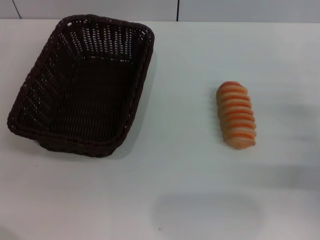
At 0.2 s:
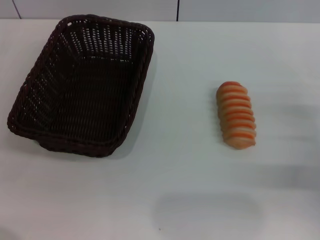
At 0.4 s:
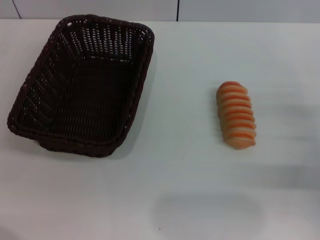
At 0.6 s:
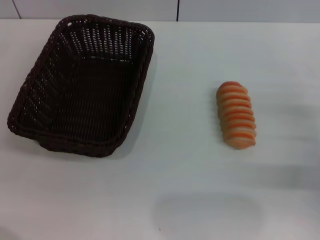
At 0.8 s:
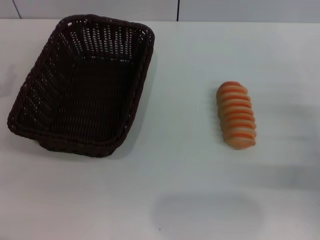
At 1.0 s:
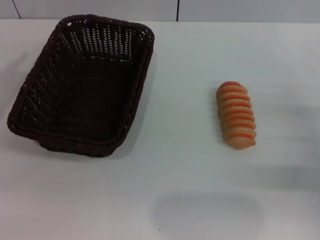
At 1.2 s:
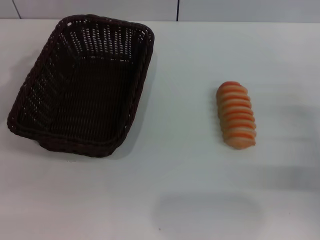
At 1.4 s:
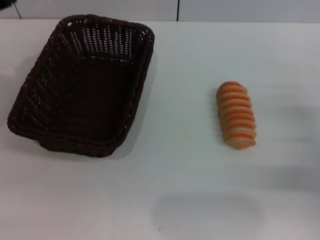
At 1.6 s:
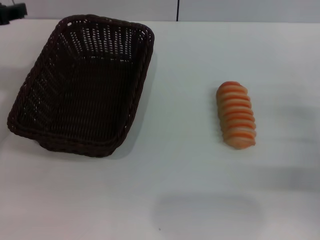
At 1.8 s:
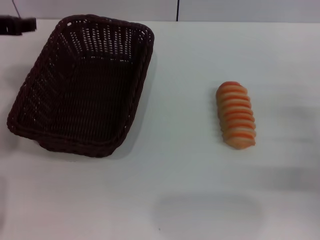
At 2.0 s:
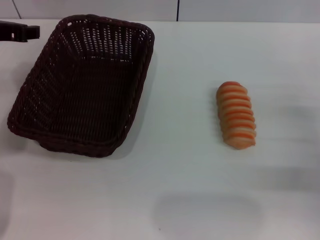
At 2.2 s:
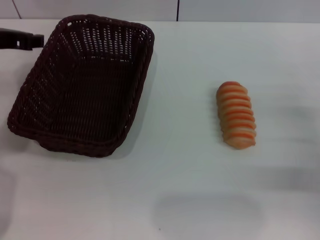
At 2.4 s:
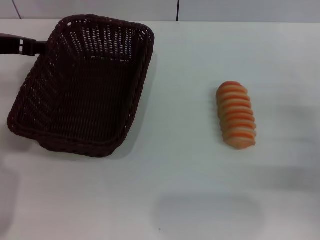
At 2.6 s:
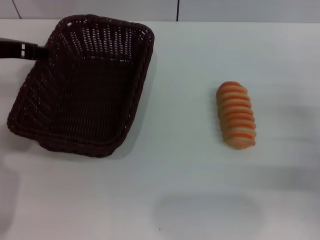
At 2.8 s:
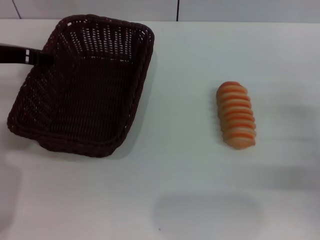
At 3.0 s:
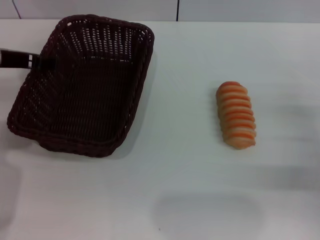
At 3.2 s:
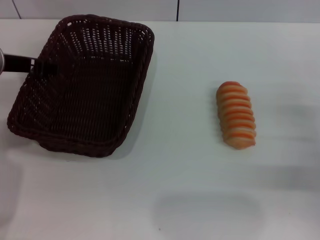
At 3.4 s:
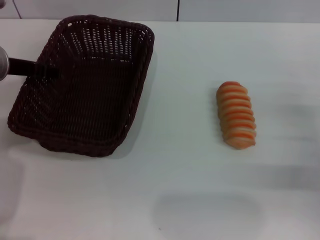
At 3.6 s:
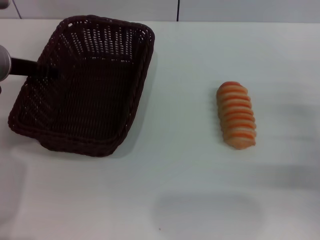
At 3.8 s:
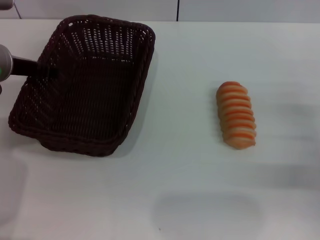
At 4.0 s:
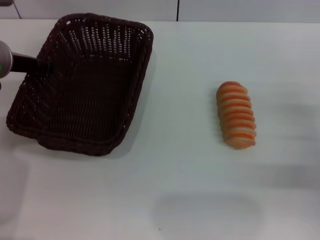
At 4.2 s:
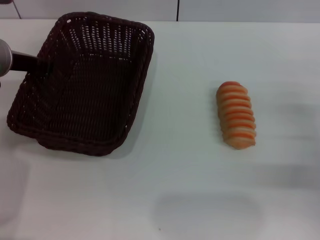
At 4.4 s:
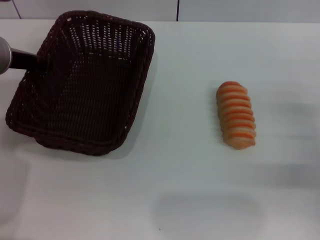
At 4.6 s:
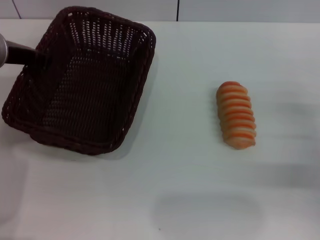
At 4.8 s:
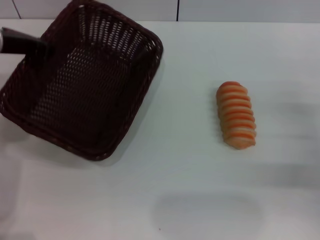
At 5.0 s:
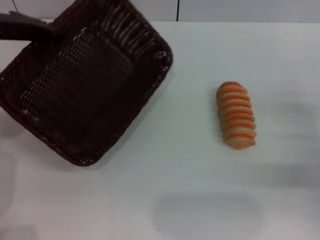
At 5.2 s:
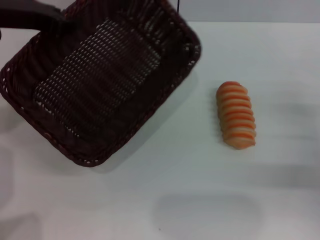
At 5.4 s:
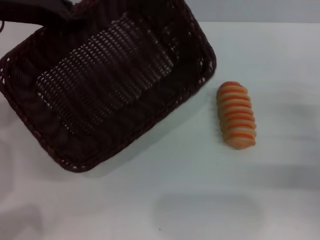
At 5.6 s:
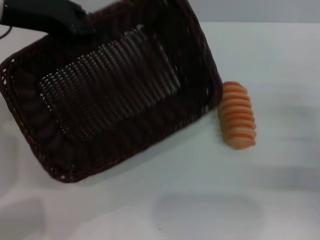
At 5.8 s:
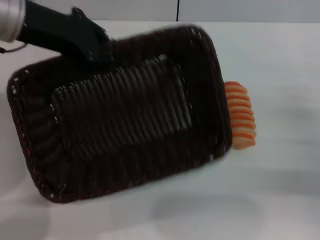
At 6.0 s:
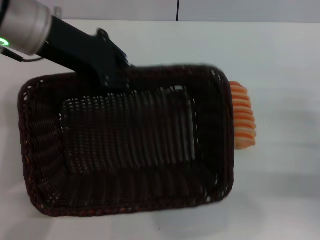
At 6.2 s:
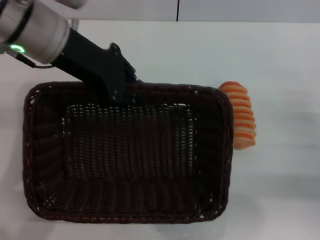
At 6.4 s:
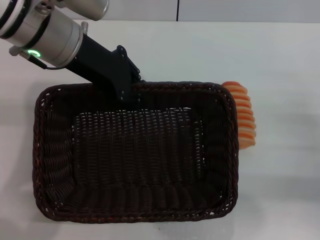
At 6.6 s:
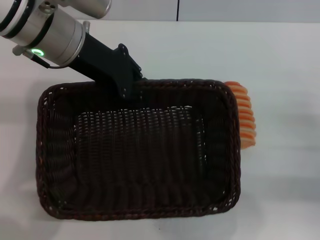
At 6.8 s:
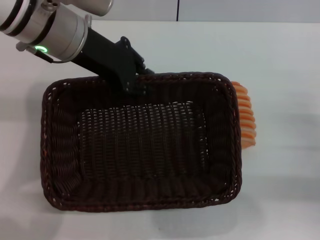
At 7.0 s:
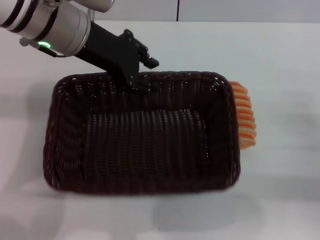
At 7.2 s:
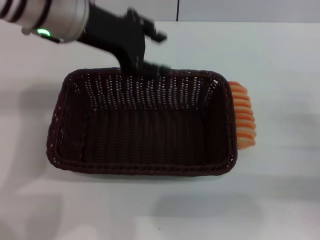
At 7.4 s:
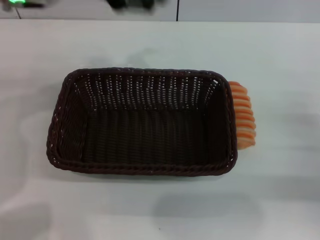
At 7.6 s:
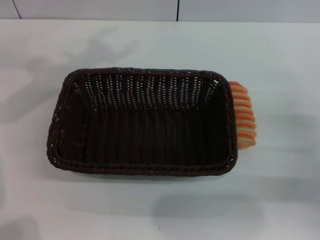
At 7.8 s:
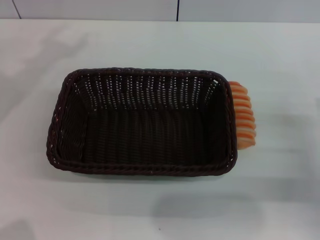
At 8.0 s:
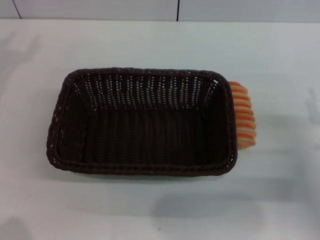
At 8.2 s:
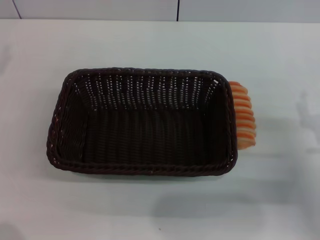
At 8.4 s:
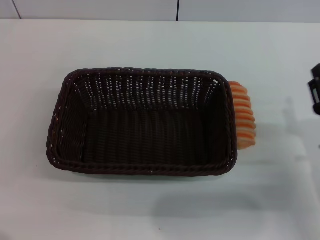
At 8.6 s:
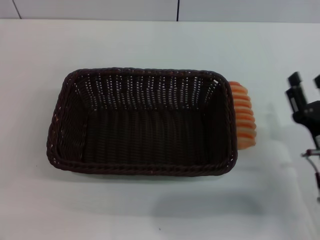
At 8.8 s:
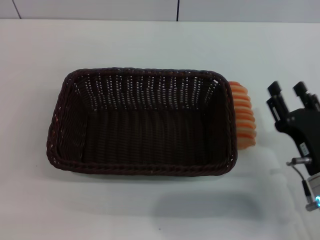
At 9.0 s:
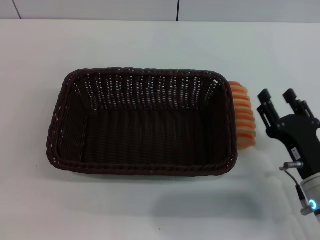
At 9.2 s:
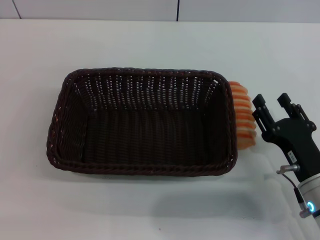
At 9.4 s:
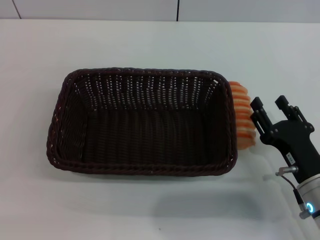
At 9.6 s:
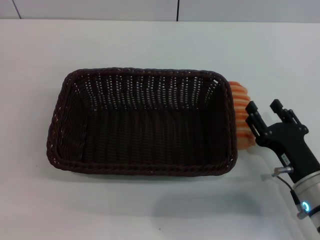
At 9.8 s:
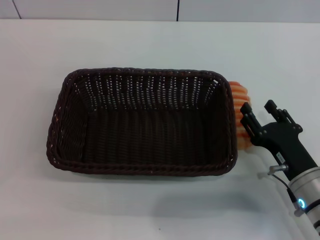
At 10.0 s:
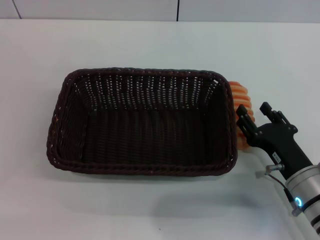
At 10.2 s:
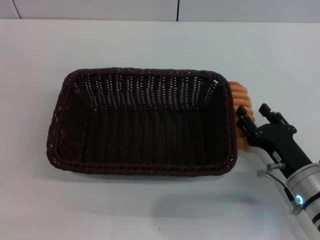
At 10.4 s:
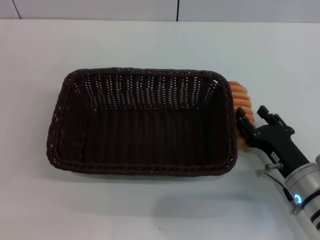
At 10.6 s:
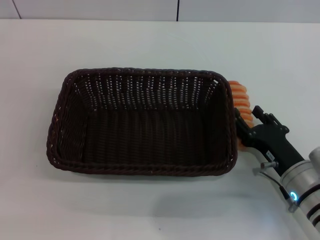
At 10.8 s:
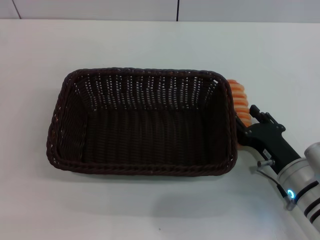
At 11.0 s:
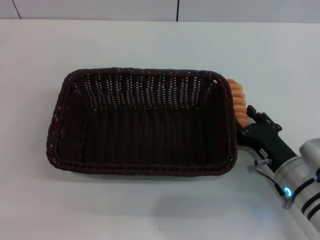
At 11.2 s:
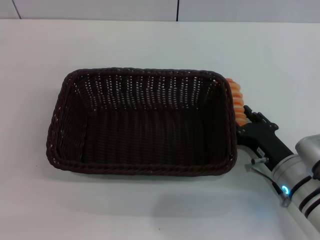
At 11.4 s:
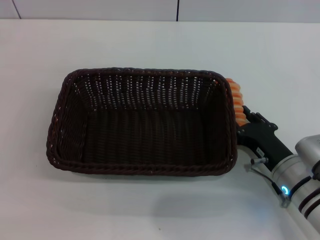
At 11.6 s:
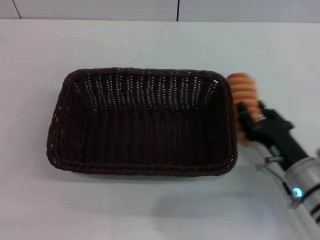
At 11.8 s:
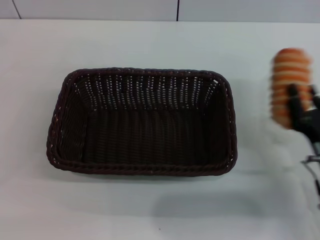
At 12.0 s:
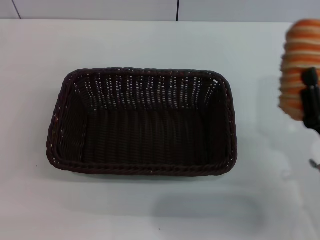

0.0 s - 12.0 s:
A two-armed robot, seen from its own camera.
Step, 0.0 s - 5.0 s: Pick up the dark basket with the left gripper.
Step, 5.2 s - 7.0 s: Place the dark basket in the center of view with the left gripper.
Step, 7.2 s - 11.6 s: Pick up the long bread with the right gripper.
0.0 s - 1.6 s: The left gripper heads upward, forward and to the right, covering approximately 20 cm.
1.6 s - 3.0 s: The left gripper changes place by roughly 5 cm, and opens up.
3.0 s - 4.4 s: The left gripper closes.
4.4 s - 6.0 s: The left gripper is displaced upward and to the right by about 10 cm.
6.0 s - 7.6 s: The left gripper travels to the left by roughly 5 cm, and opens up.
7.6 s - 9.0 s: The right gripper heads to the left, covering approximately 10 cm.
9.0 s - 10.4 s: There are only small adjustments of the grippers.
10.4 s - 12.0 s: The right gripper changes place by approximately 5 cm, and closes its fingers.

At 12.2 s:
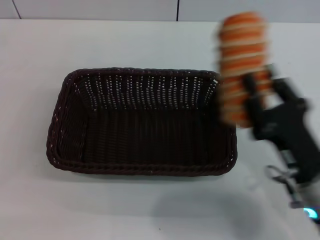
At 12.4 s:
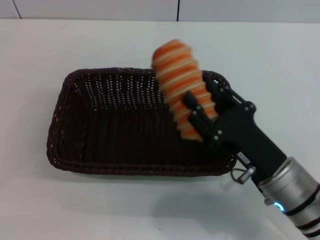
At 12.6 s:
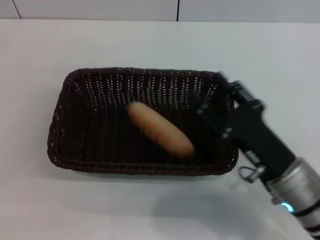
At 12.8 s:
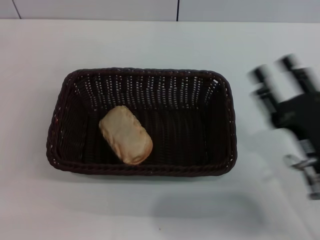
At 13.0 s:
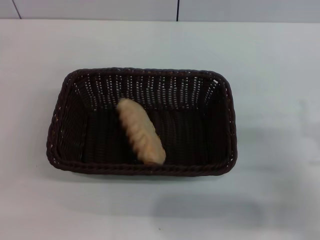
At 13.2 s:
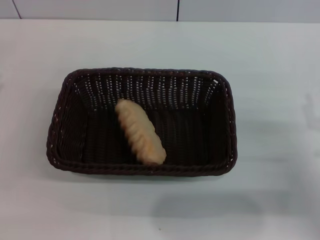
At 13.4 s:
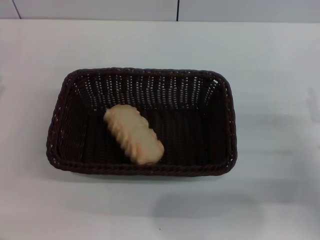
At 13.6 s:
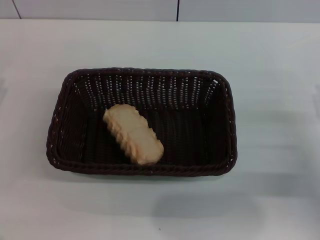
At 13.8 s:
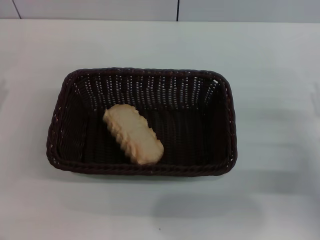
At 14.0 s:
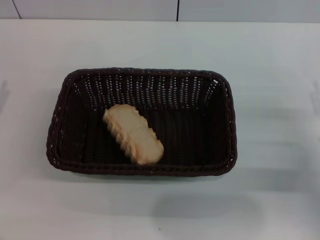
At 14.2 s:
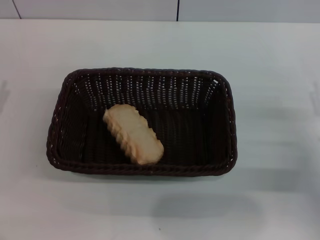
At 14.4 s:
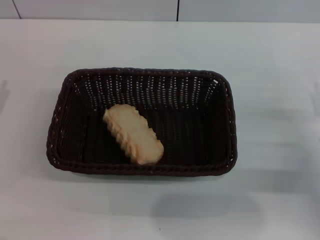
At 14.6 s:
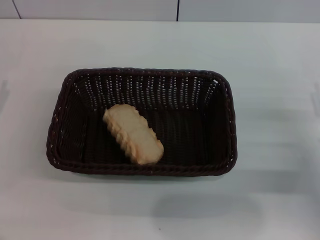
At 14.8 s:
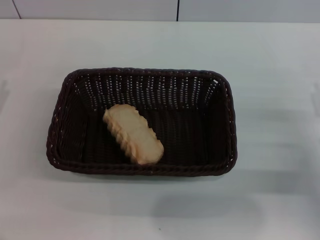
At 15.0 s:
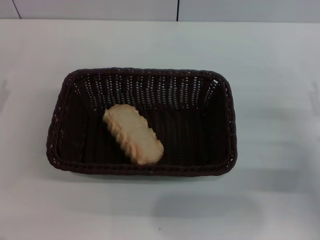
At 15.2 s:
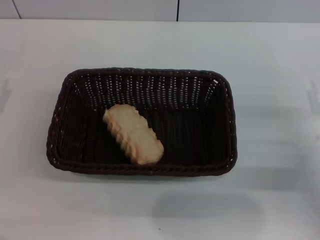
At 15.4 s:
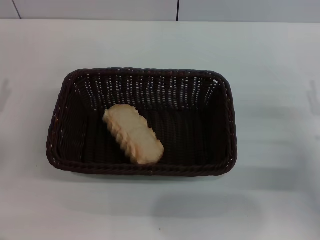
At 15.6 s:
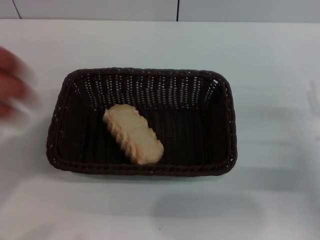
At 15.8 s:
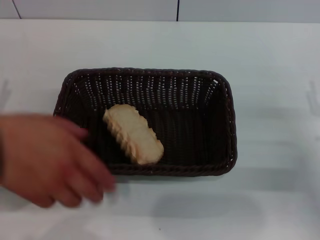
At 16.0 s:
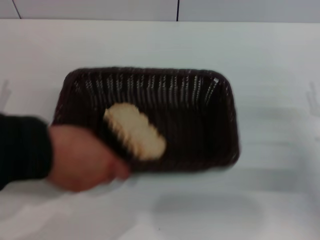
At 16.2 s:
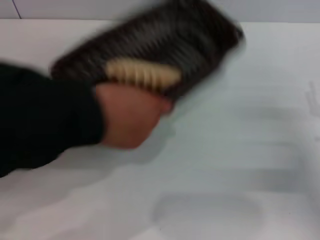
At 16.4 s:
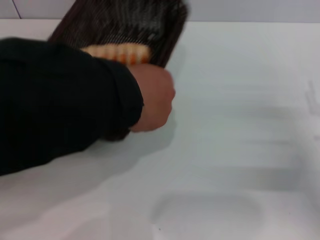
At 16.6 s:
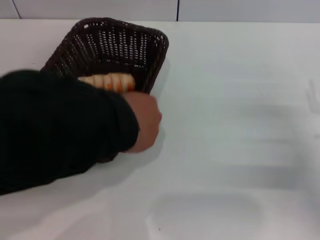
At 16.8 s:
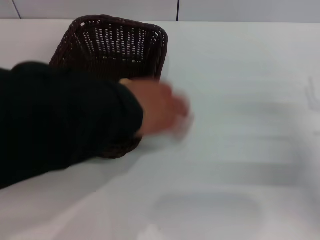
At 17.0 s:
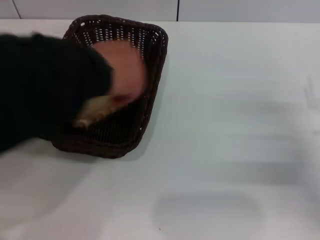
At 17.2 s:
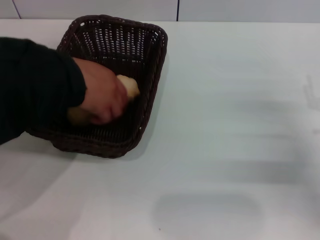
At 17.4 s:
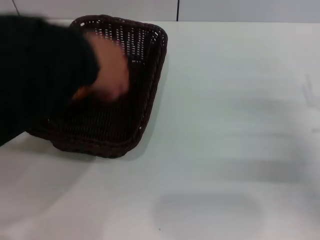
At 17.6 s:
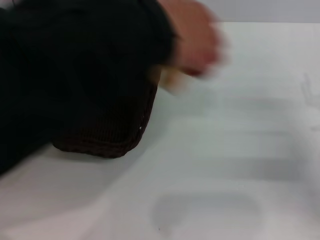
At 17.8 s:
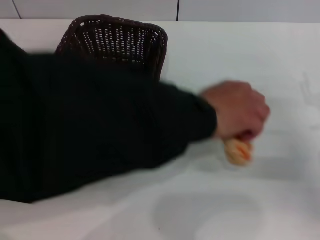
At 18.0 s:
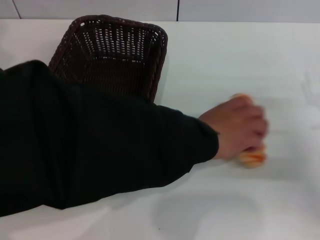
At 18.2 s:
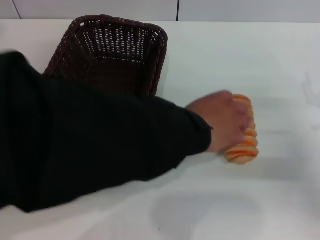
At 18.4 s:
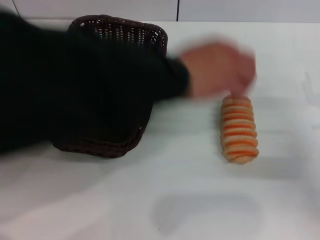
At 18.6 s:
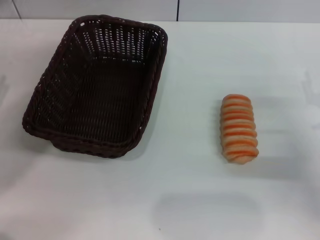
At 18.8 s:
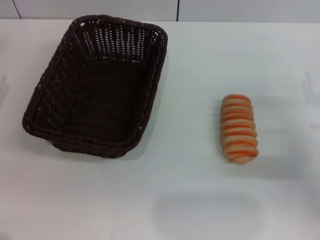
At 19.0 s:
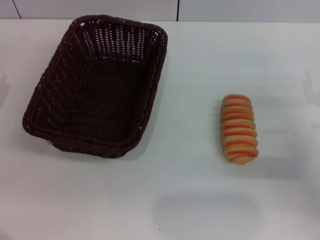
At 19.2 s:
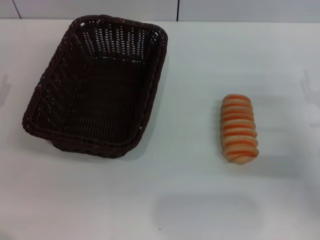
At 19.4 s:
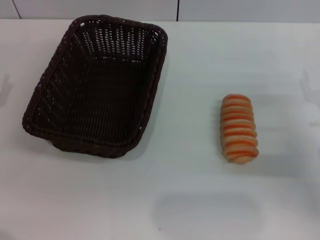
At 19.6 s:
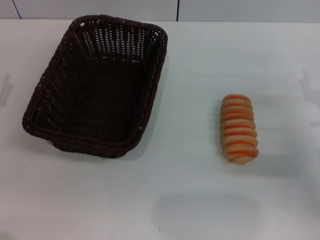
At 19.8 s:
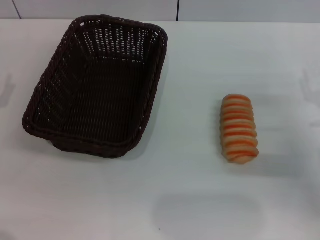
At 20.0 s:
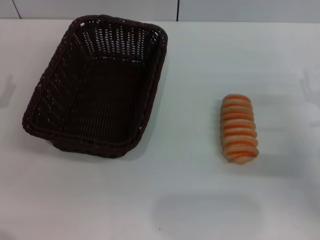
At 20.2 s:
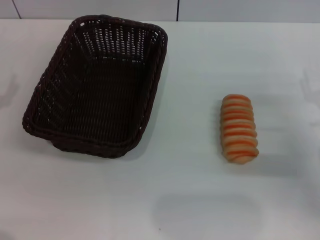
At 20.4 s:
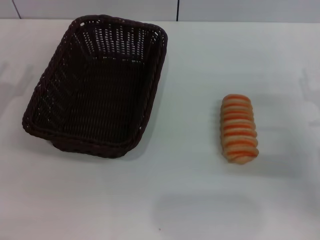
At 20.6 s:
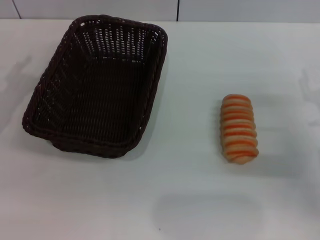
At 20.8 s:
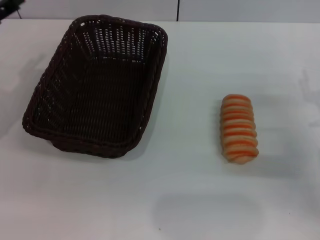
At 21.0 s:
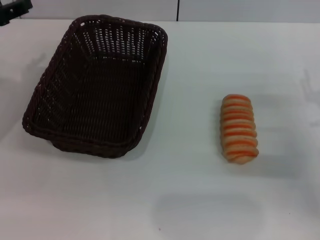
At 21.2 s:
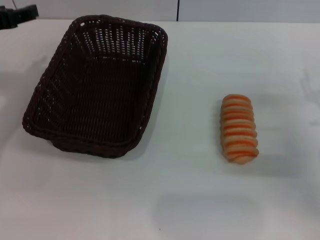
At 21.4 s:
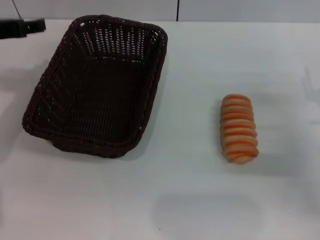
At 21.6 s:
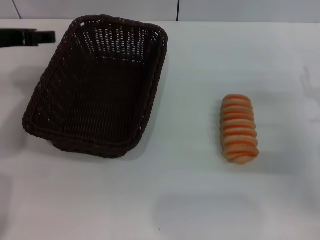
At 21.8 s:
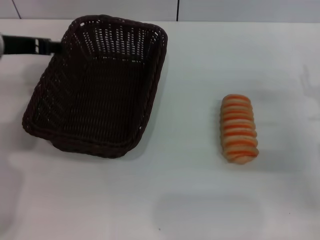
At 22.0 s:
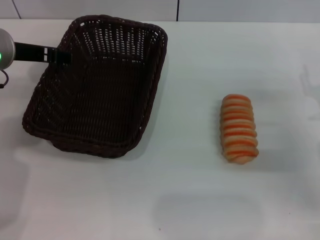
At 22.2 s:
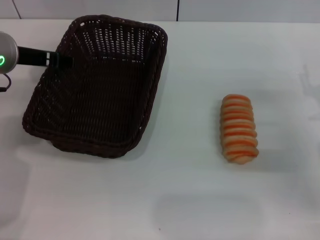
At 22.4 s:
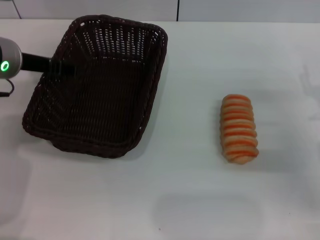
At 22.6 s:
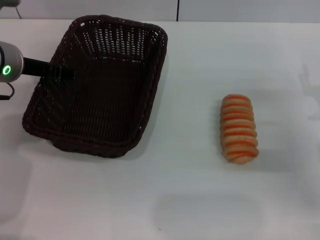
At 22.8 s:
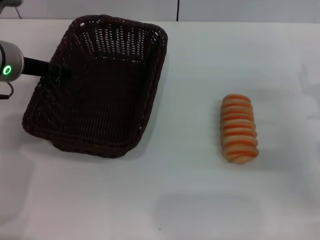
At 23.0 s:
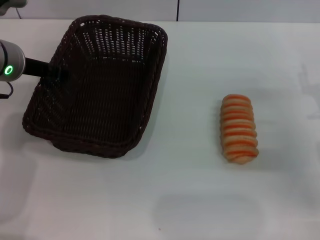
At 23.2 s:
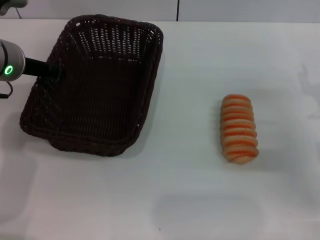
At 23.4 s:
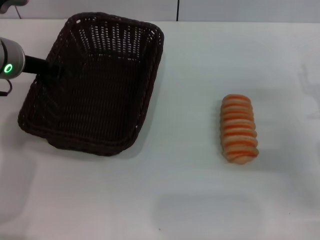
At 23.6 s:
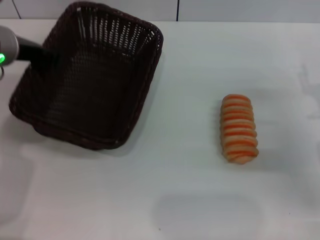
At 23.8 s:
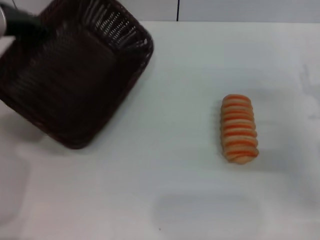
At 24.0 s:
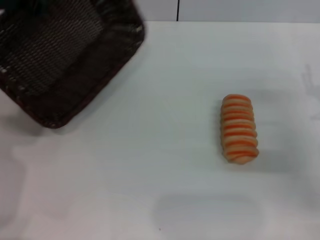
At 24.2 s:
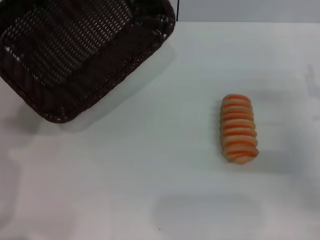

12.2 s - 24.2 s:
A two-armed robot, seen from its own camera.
Step, 12.2 s - 12.6 s: Place the long bread into the dark basket with the right gripper.
Step, 18.8 s - 23.4 s: Pick up the dark basket with the left gripper.
12.2 s - 13.8 s: The right gripper shifts approximately 15 cm to the right and forward, and opens up. Meanwhile the left gripper changes place by some 5 cm.
13.8 s - 15.2 s: Both grippers stay put.
19.8 s - 21.2 s: The left gripper shifts roughly 15 cm upward, forward and to the right.
21.2 s - 22.6 s: The left gripper shifts approximately 5 cm to the right.
22.6 s - 24.2 s: The left gripper travels upward by roughly 10 cm, and closes.
